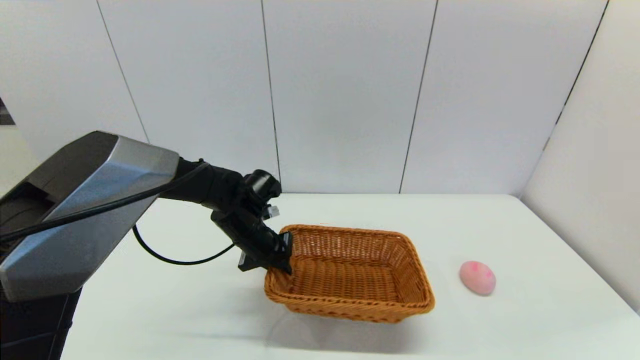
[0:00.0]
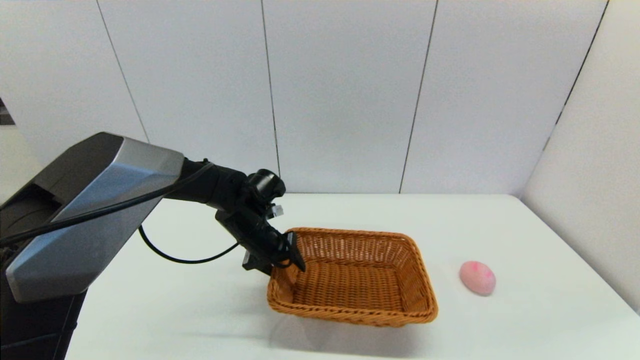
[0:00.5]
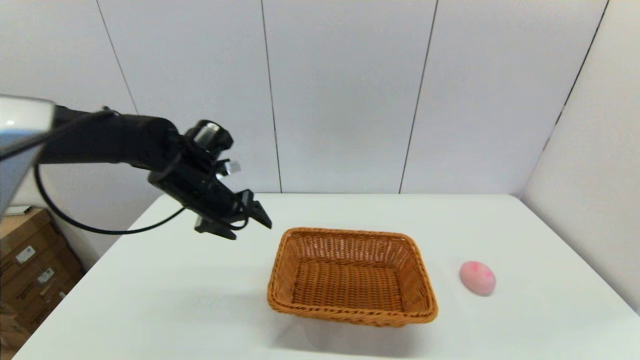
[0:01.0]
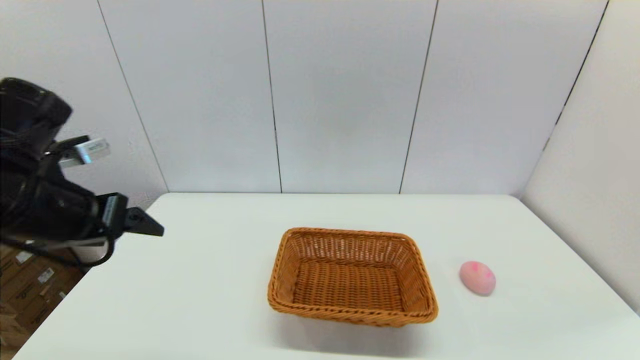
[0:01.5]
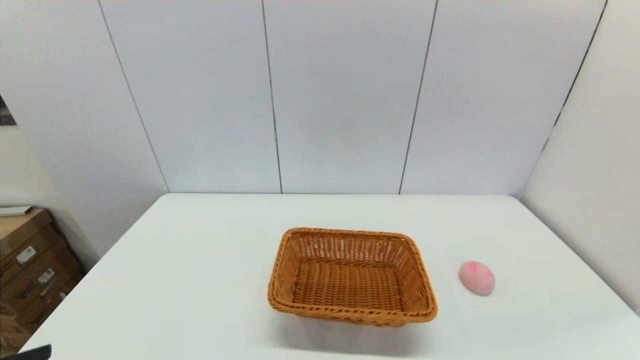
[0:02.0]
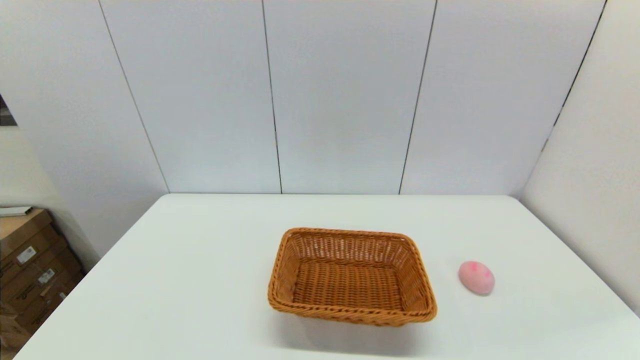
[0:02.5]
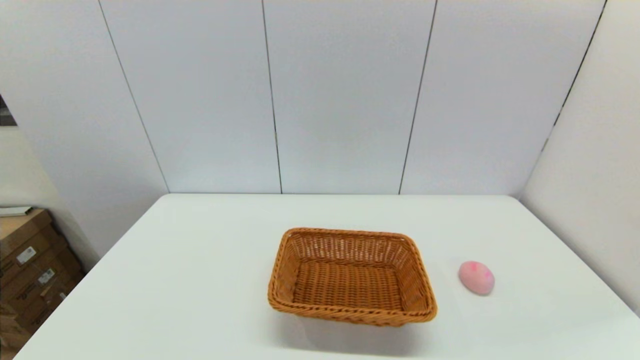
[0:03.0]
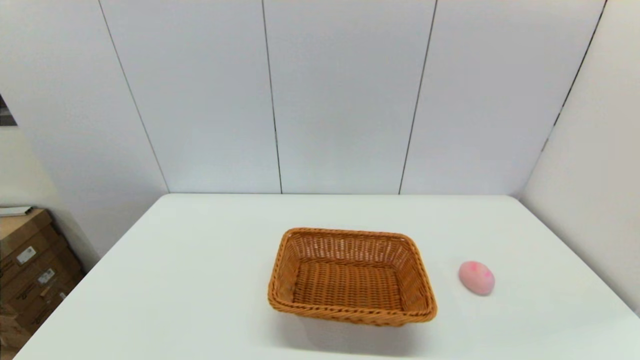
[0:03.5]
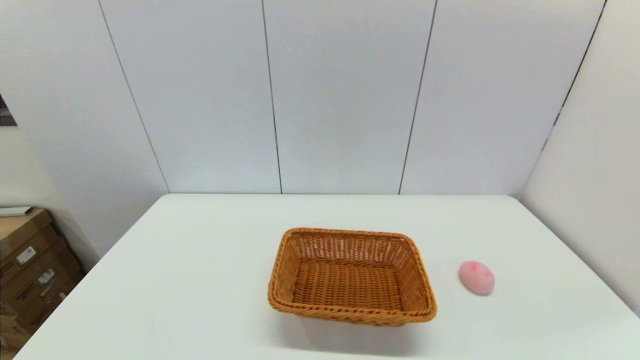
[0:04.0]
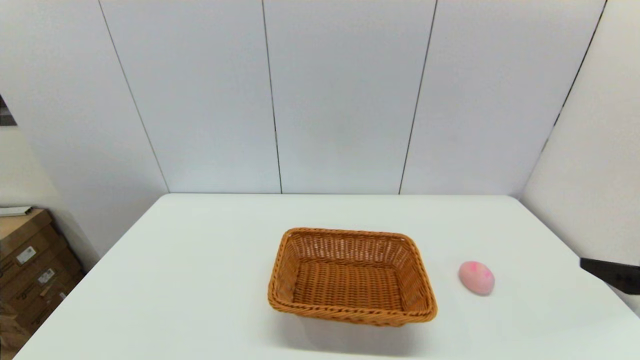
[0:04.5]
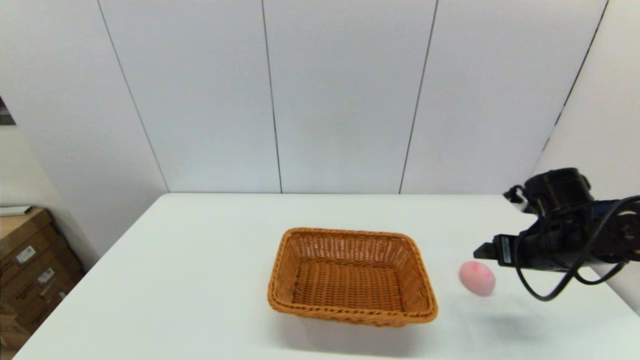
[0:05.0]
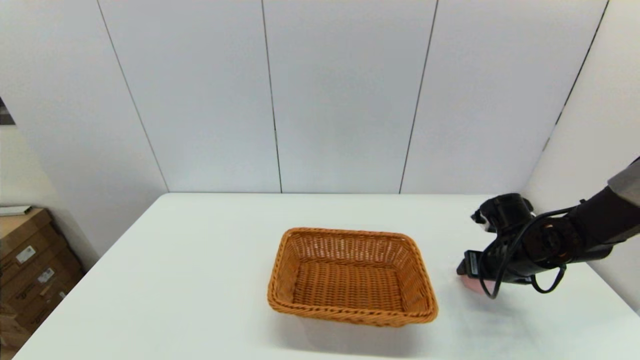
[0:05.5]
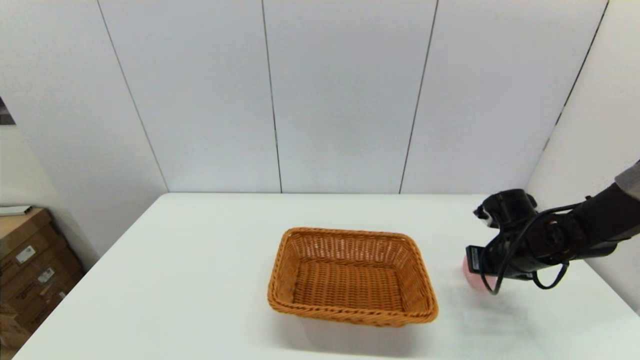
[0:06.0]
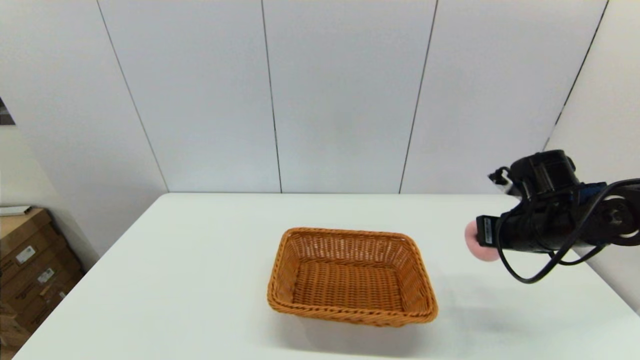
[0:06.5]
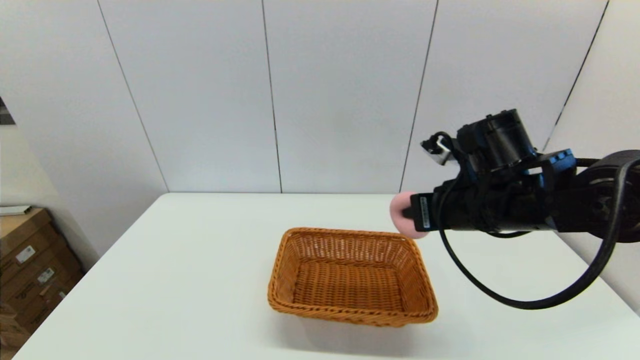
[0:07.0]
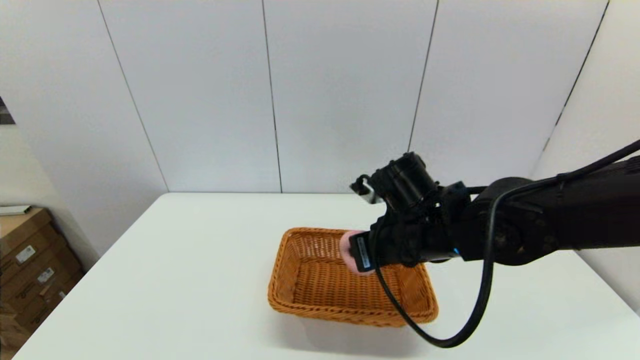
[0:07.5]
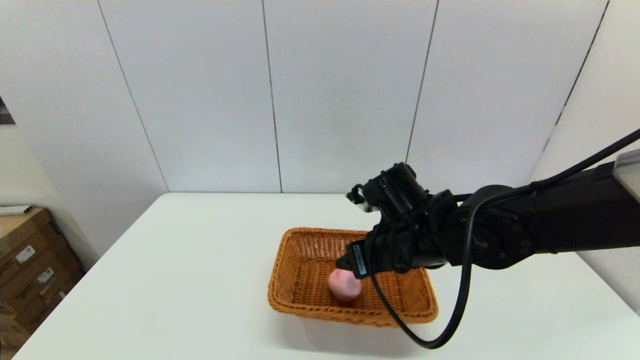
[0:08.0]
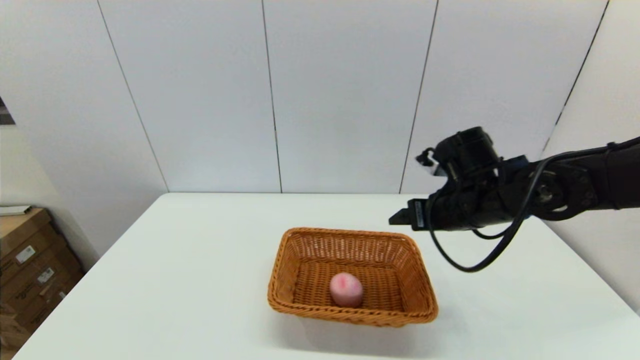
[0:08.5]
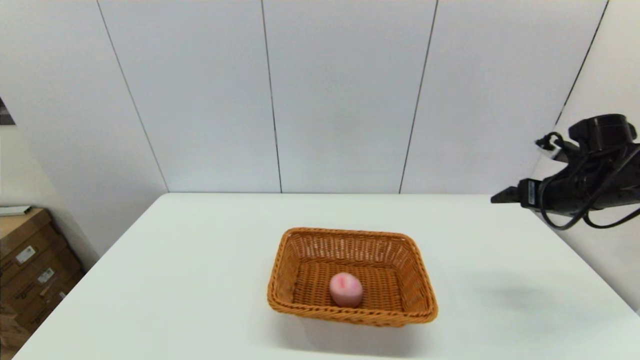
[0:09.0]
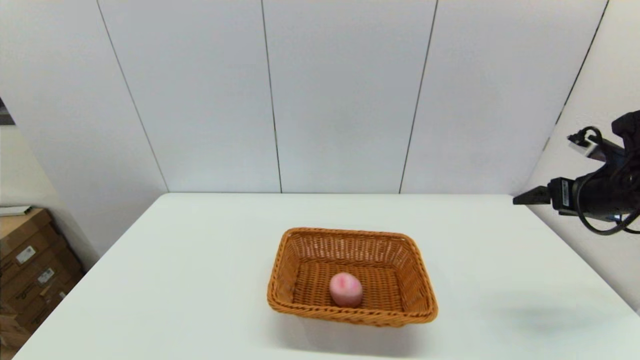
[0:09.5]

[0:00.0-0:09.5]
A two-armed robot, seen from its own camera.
Step, 0:01.0 to 0:05.5: Grasp the peach with the right gripper.
Step, 0:06.5 to 0:07.5: Place the peach into the light basket with the right gripper.
0:00.0 to 0:02.0: The left gripper shifts some 40 cm backward and to the left, and opens.
0:04.0 to 0:05.5: The right gripper goes about 35 cm forward.
0:05.5 to 0:07.5: The right gripper goes about 25 cm to the left and upward, and closes up.
0:07.5 to 0:09.5: The right gripper travels to the right by about 30 cm, and opens up.

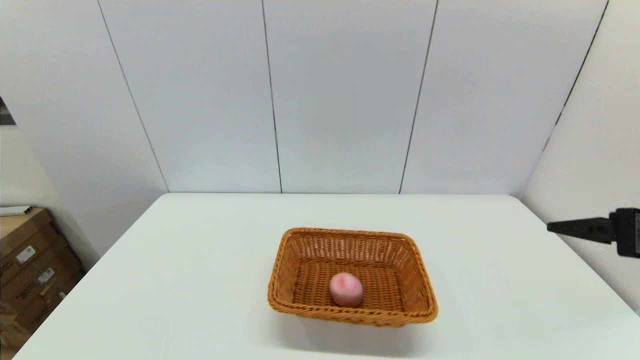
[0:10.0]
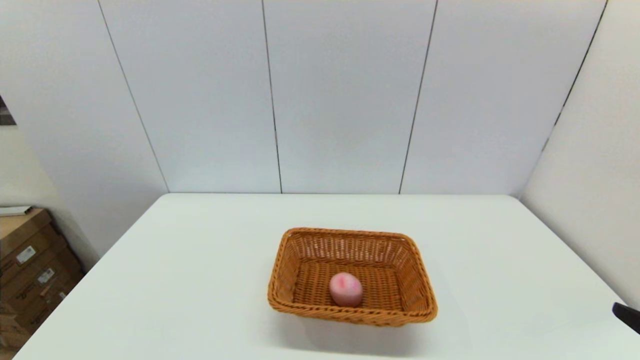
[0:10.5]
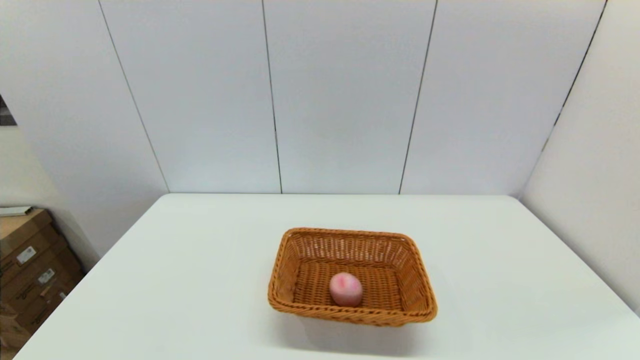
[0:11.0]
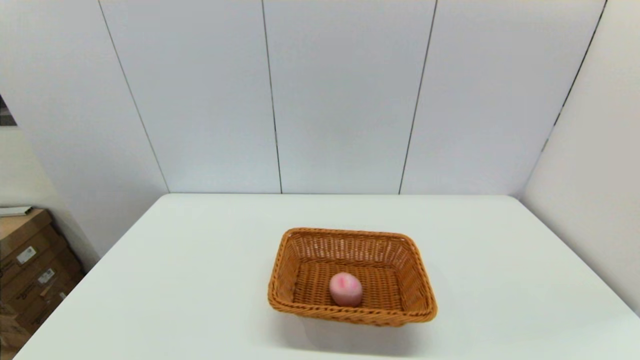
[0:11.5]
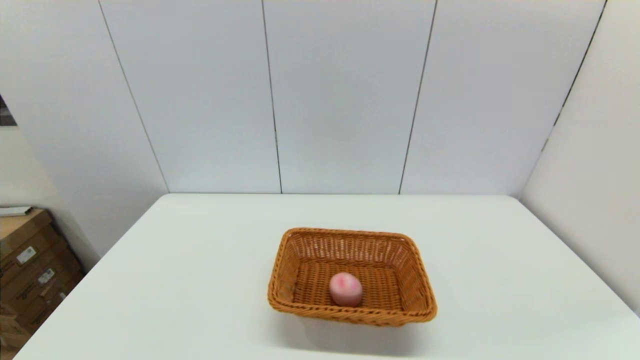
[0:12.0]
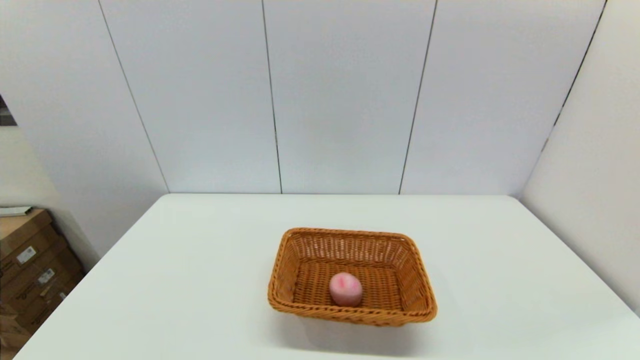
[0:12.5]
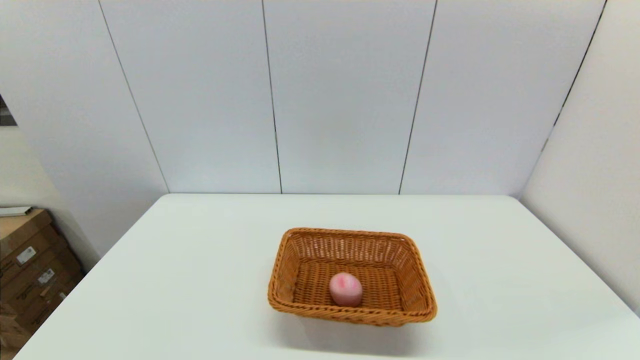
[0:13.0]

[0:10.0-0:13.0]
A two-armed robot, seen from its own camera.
0:10.0 to 0:11.5: The right gripper heads backward and downward, covering about 20 cm.
